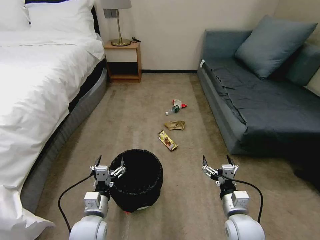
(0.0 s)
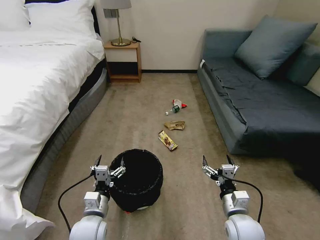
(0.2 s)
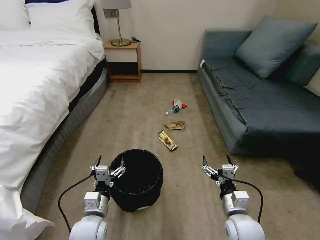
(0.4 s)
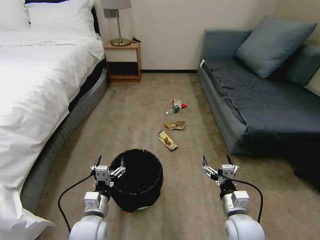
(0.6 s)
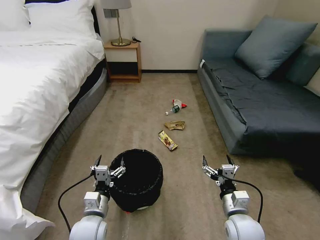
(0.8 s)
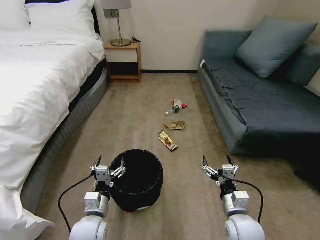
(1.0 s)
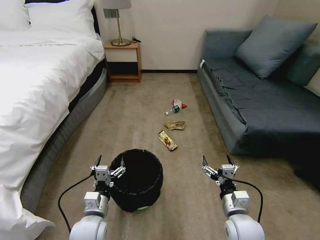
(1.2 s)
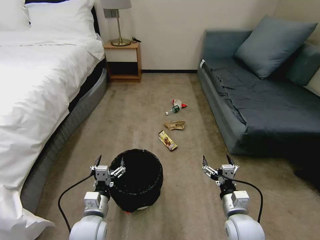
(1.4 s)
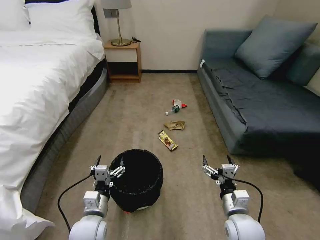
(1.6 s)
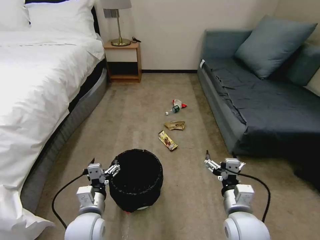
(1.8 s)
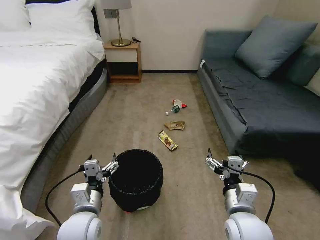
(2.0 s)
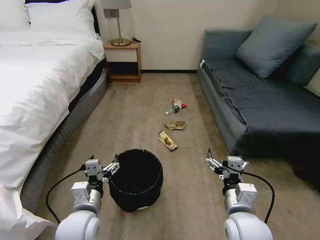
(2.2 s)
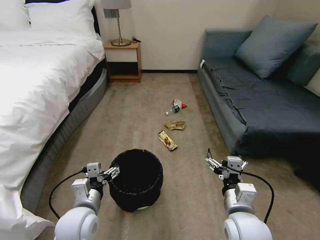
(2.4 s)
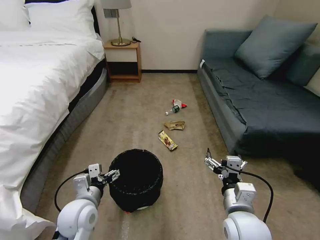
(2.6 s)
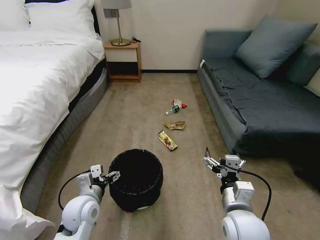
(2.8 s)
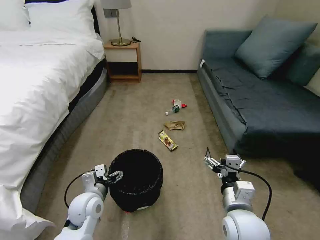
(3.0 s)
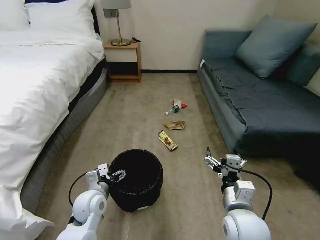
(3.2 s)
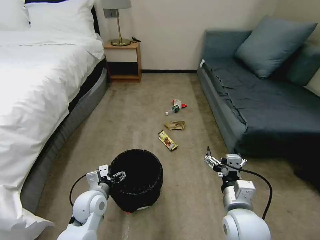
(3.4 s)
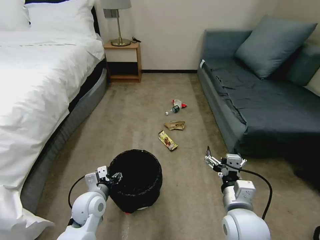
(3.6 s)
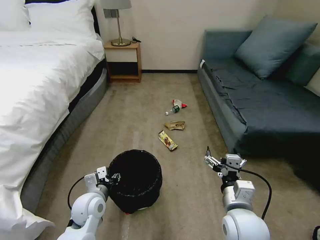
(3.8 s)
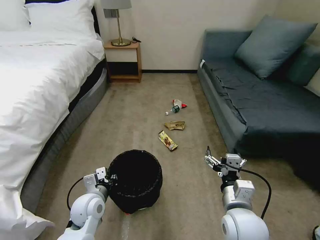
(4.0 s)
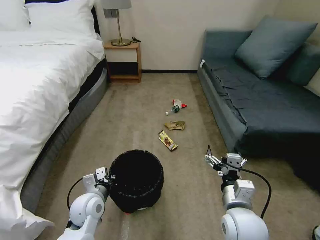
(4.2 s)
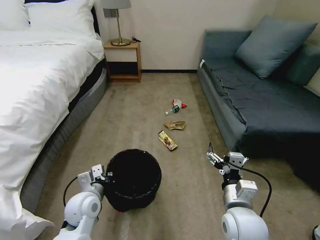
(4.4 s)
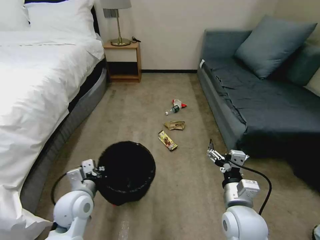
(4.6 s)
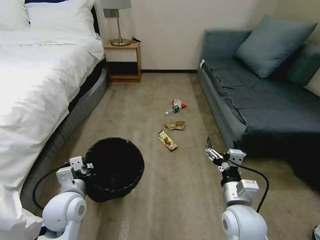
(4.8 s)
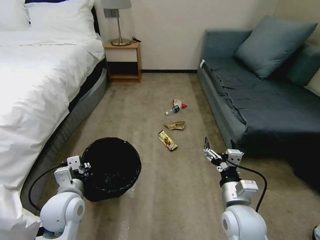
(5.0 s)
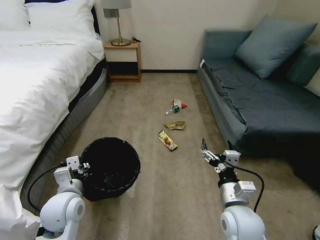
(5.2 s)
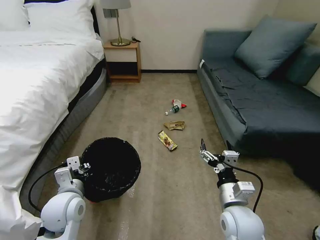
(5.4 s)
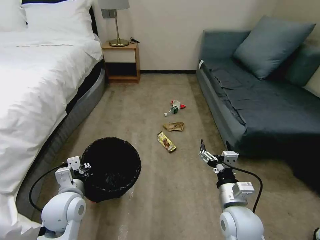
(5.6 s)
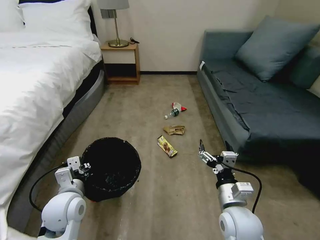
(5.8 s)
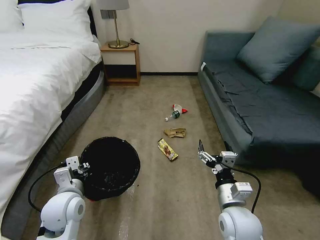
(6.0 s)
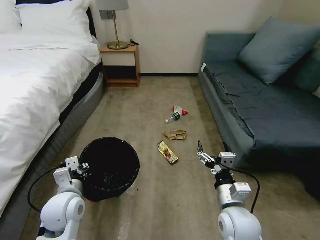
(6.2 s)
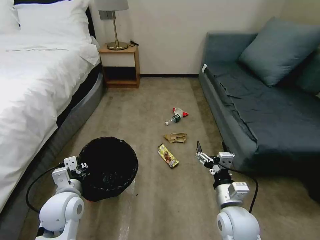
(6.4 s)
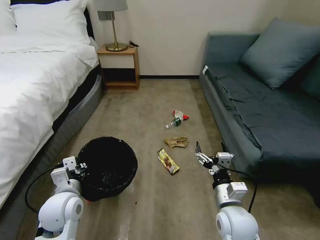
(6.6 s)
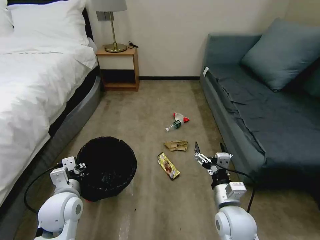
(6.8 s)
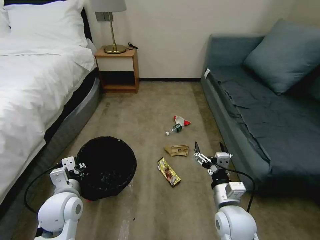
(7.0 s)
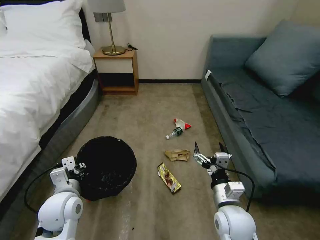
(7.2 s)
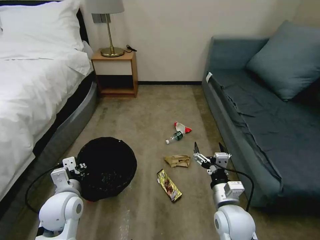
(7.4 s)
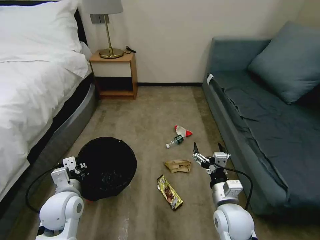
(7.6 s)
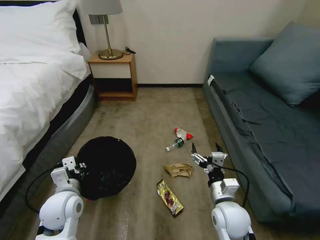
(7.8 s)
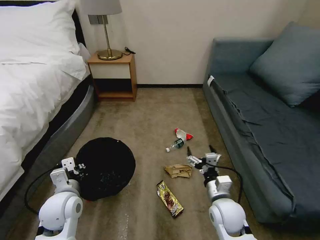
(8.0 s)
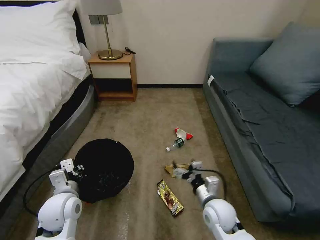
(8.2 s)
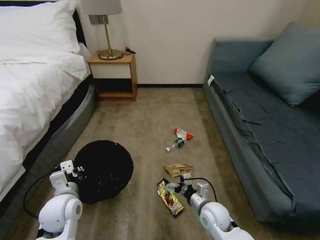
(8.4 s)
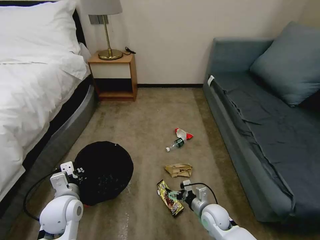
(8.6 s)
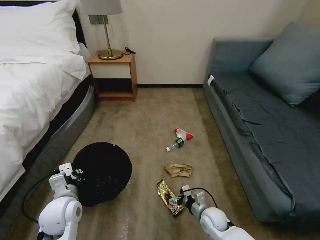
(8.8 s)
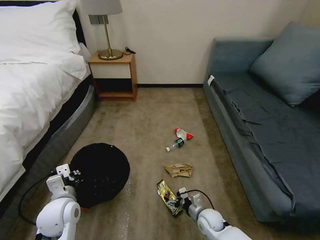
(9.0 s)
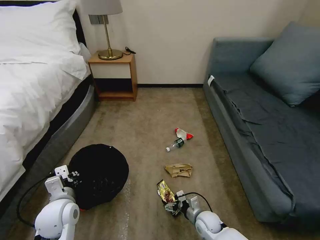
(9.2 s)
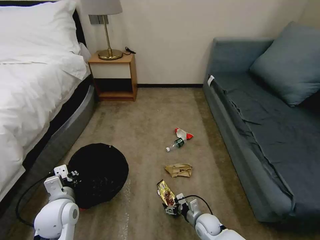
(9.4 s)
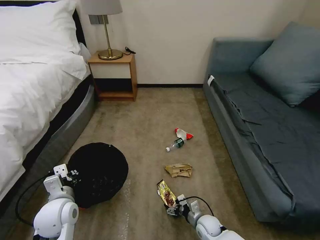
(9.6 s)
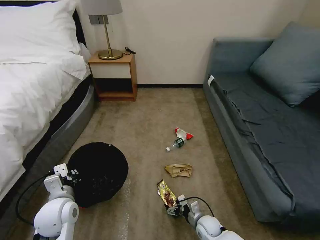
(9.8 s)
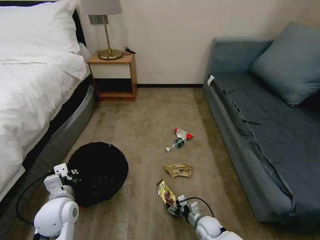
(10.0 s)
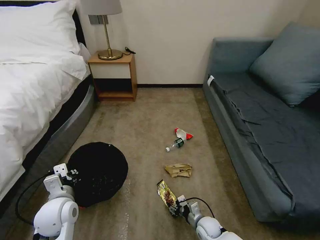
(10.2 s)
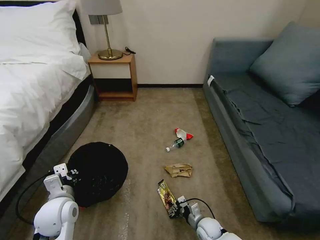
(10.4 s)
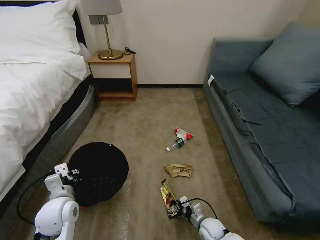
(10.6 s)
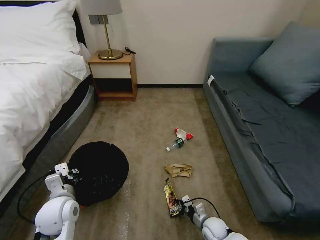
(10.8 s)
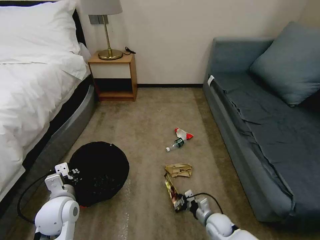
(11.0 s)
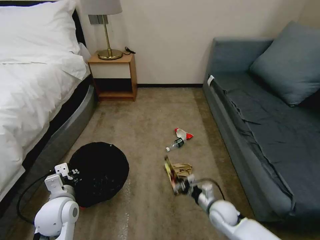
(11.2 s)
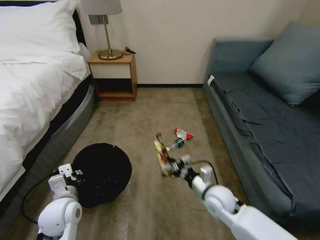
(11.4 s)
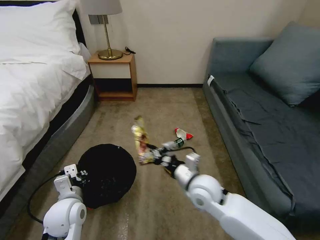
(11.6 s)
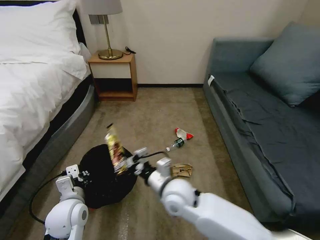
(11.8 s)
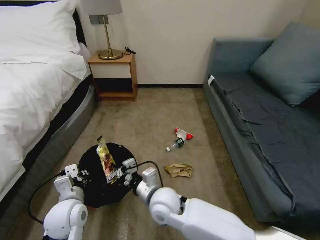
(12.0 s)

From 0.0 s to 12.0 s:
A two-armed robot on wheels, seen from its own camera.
Task of the whole recording: Pick up the trash bin, then pick up the garbage on the floor and place it into the trash bin.
From 1.6 s to 3.0 s: The right gripper shifts about 10 cm upward; the left gripper heads forward, covering some 5 cm.
From 3.0 s to 4.4 s: The left gripper closes.
From 4.4 s to 6.0 s: The left gripper heads upward, covering about 5 cm.
From 7.6 s to 9.0 s: The right gripper travels downward by some 20 cm.
From 9.0 s to 10.4 s: The right gripper shifts by approximately 5 cm, and closes up.
From 10.4 s to 12.0 s: The right gripper is displaced upward and to the left by roughly 30 cm, and closes its fingers.

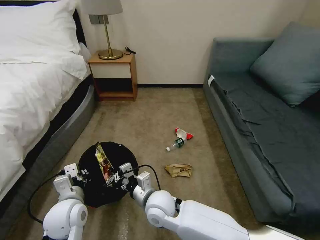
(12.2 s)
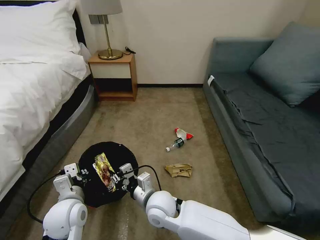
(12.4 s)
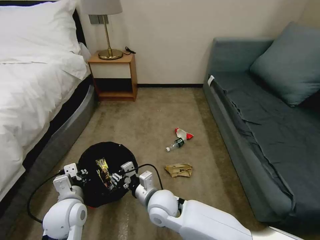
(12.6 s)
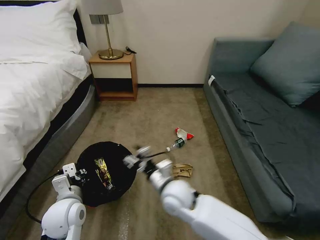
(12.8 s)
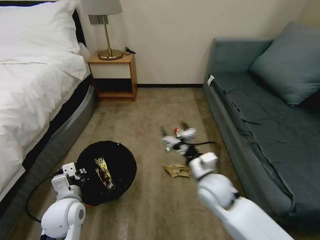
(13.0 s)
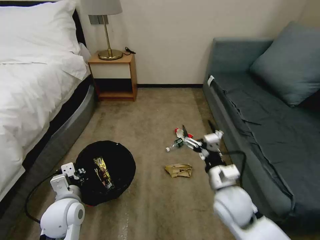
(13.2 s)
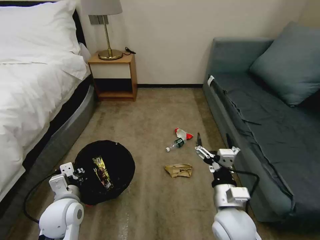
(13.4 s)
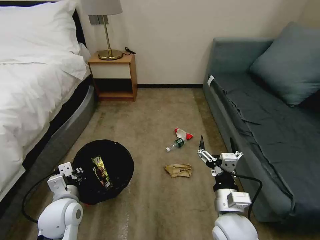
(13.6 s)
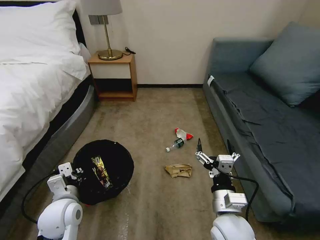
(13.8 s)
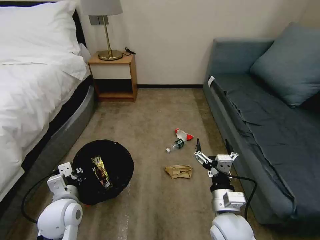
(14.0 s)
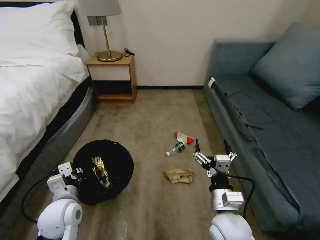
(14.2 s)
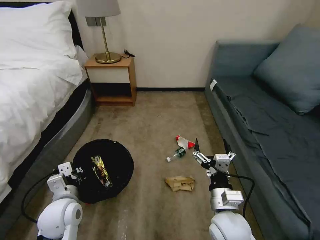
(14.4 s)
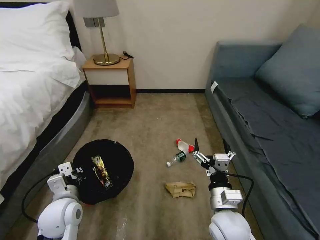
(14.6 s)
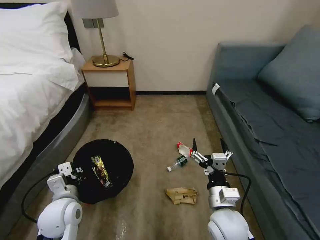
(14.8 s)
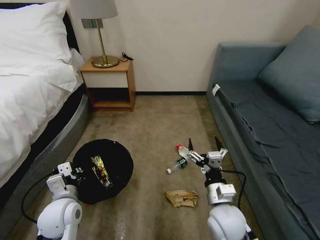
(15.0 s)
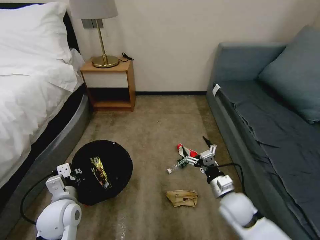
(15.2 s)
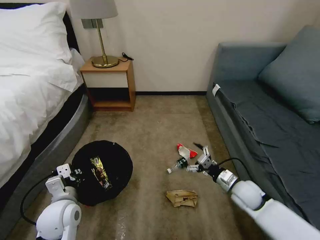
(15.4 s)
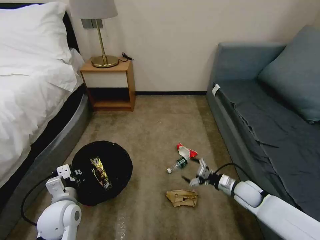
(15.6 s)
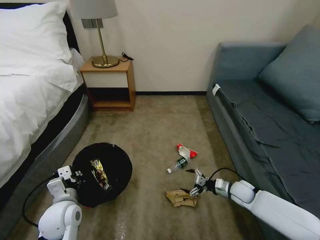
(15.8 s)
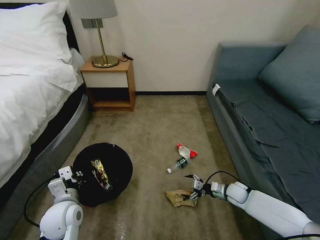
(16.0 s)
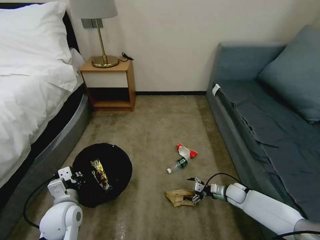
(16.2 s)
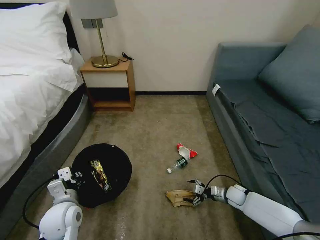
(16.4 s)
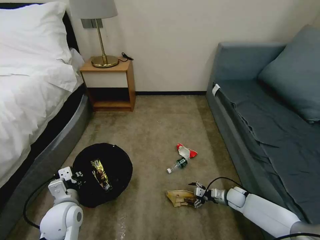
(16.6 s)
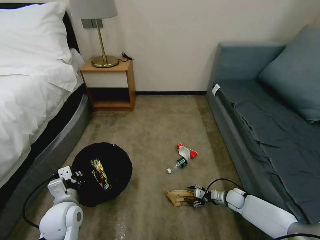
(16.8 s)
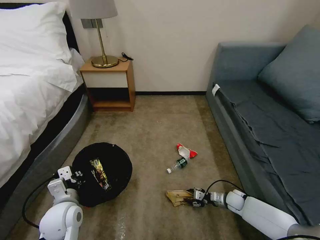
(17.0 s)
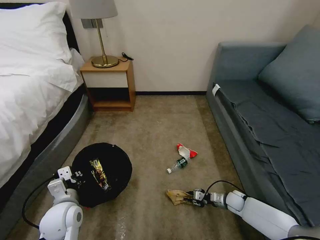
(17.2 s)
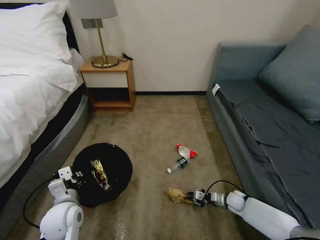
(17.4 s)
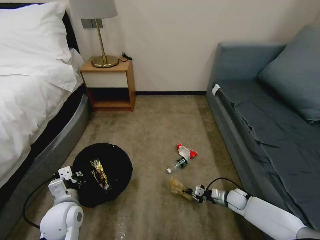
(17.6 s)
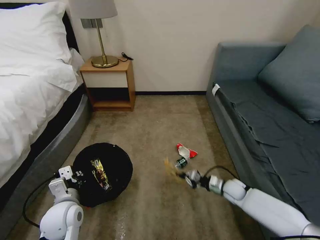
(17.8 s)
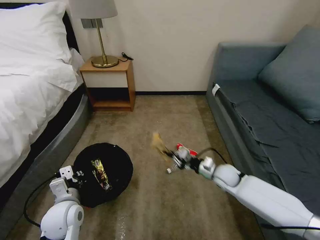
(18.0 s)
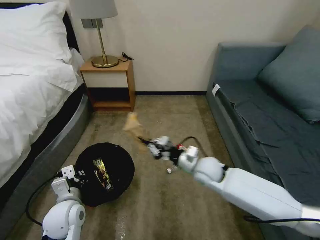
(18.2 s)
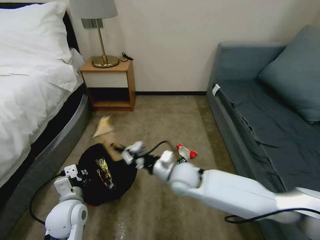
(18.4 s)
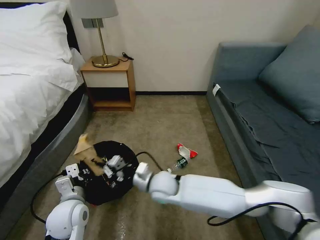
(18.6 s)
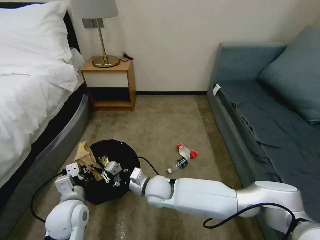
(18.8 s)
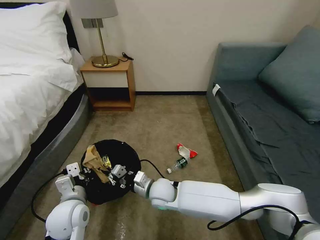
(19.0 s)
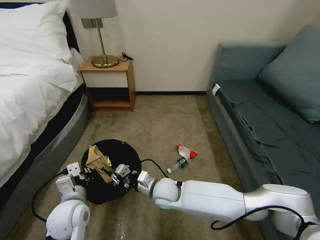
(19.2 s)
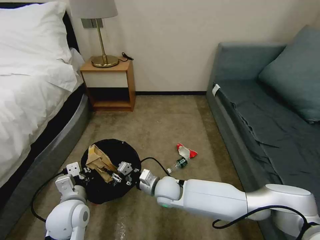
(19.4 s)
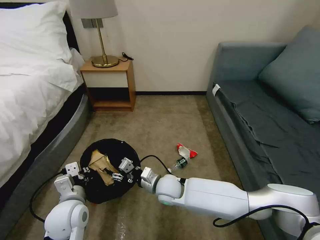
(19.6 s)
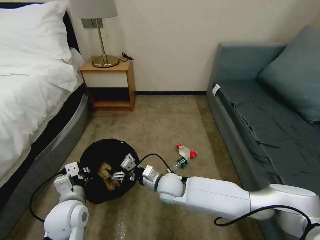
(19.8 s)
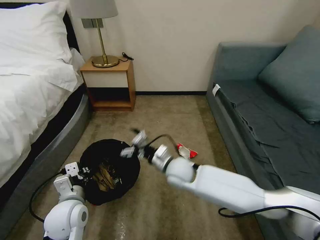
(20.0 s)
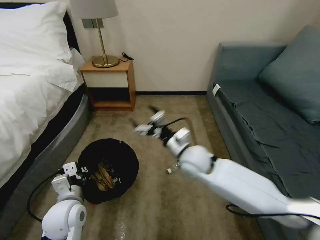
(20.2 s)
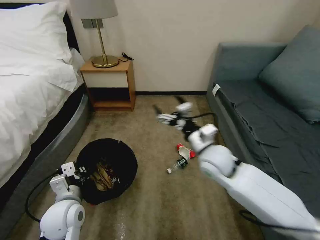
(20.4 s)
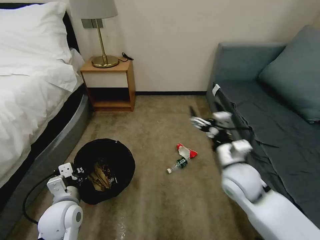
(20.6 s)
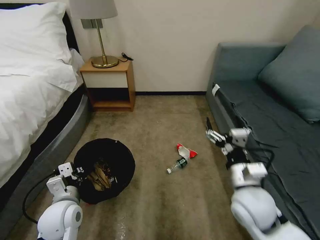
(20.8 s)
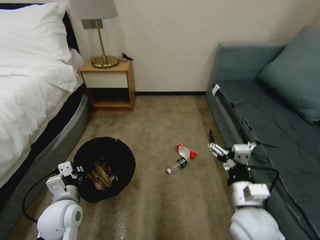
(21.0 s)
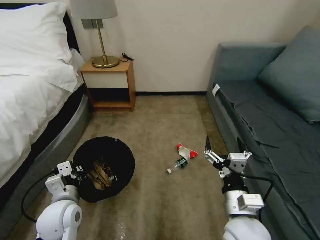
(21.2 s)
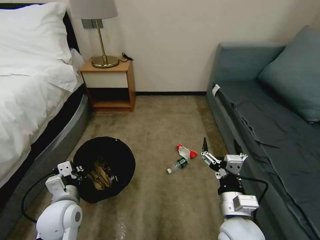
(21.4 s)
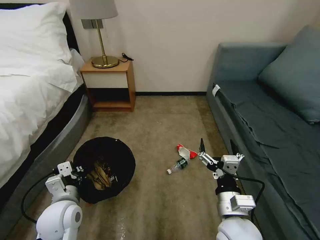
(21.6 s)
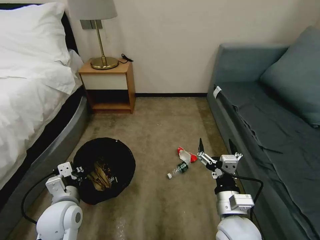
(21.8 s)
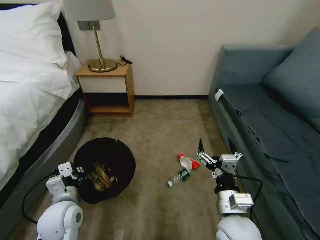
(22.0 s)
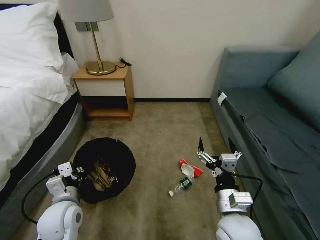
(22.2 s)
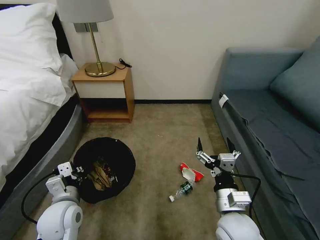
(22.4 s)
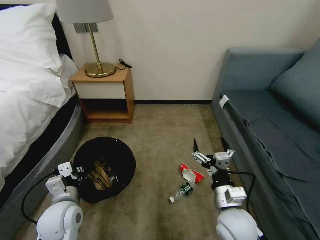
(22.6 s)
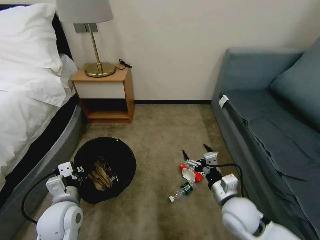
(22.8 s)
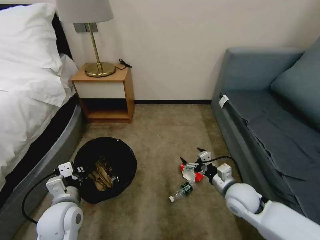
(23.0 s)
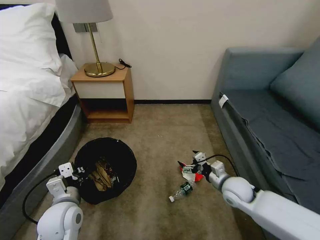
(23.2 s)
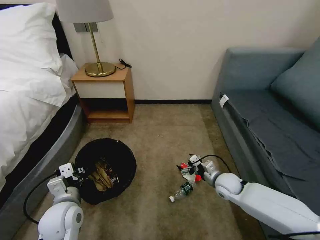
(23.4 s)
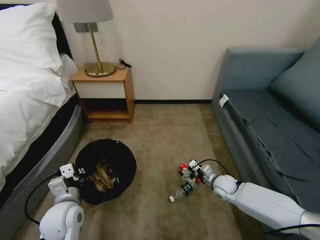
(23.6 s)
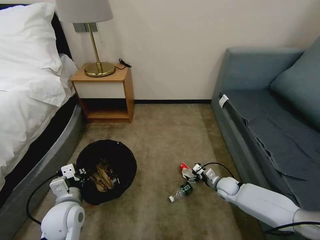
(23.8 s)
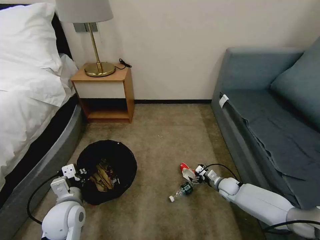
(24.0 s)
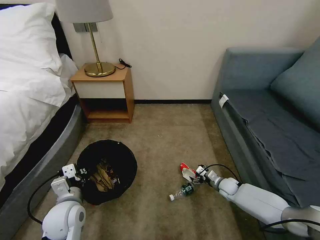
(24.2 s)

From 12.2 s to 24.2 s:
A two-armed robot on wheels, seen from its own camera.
Task of the whole recording: Pick up the trash bin, then pick up the garbage on the floor and place it into the trash bin.
From 12.2 s to 13.8 s: The right gripper goes some 20 cm to the right and backward, and opens its fingers.
From 13.8 s to 15.2 s: The right gripper goes about 15 cm forward, to the right and downward.
From 15.2 s to 16.6 s: The right gripper heads downward, to the right and forward, covering some 25 cm.
From 16.6 s to 18.2 s: The right gripper heads upward and to the left, covering some 30 cm, and closes up.
From 18.2 s to 19.8 s: The right gripper is displaced to the left and downward by about 15 cm, and opens.
From 19.8 s to 21.2 s: The right gripper moves backward, to the right and upward, about 25 cm.
From 22.6 s to 24.2 s: The right gripper travels downward, forward and to the right by approximately 35 cm.
